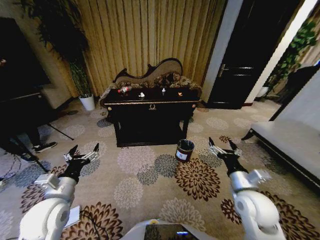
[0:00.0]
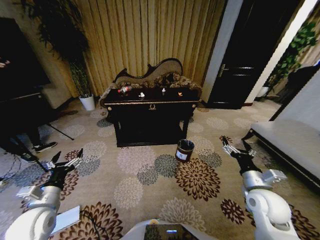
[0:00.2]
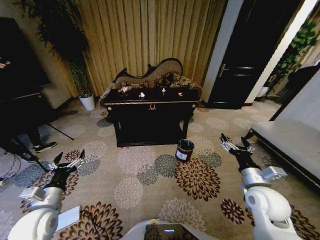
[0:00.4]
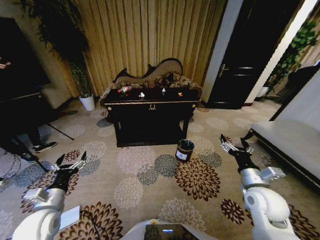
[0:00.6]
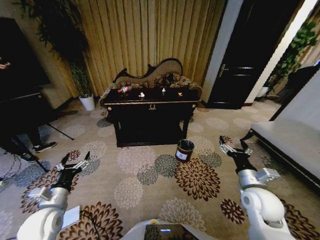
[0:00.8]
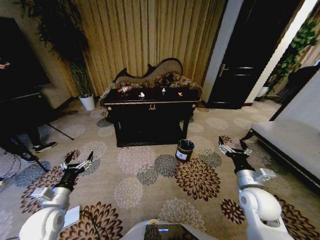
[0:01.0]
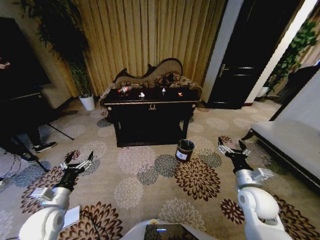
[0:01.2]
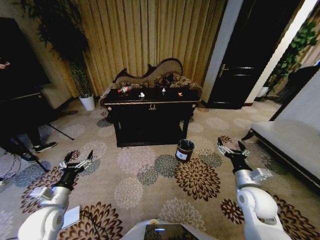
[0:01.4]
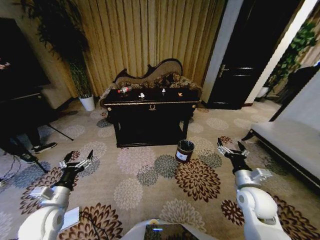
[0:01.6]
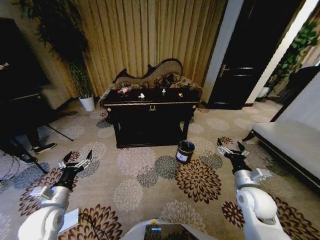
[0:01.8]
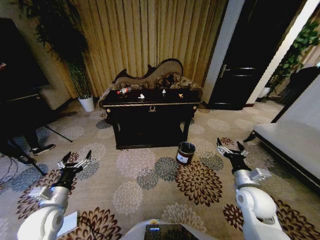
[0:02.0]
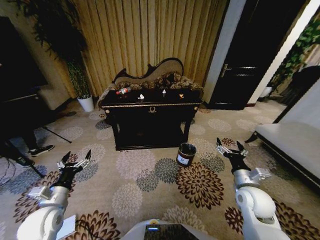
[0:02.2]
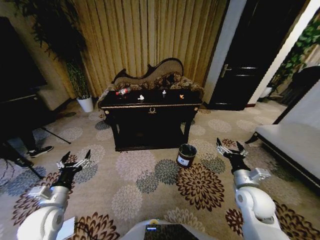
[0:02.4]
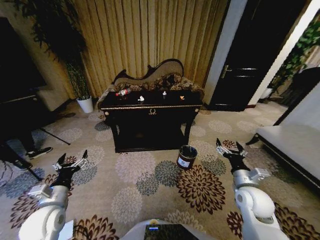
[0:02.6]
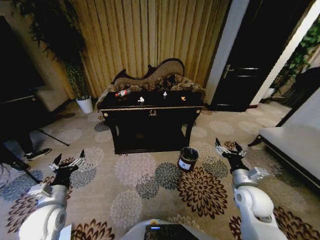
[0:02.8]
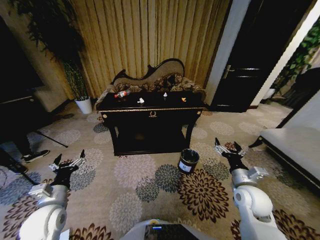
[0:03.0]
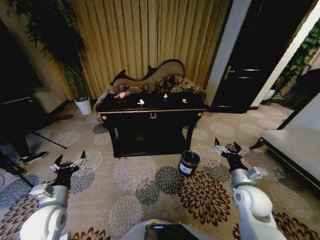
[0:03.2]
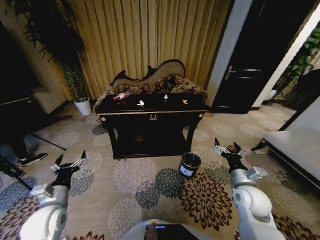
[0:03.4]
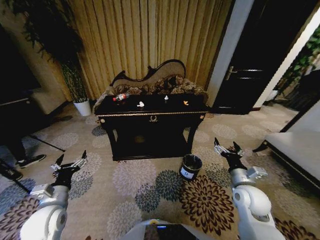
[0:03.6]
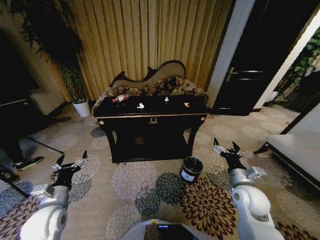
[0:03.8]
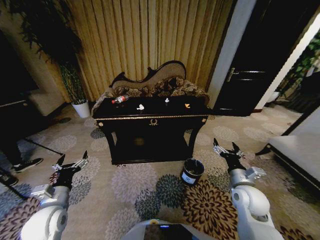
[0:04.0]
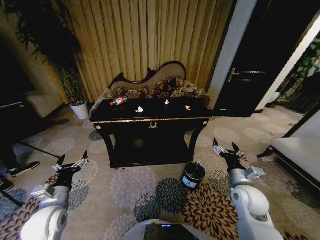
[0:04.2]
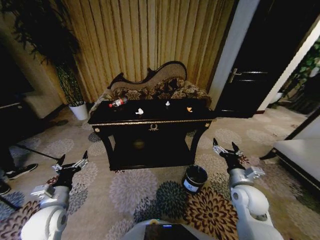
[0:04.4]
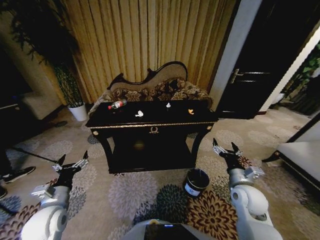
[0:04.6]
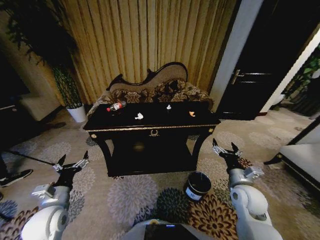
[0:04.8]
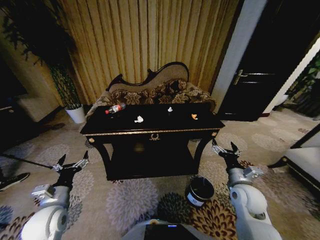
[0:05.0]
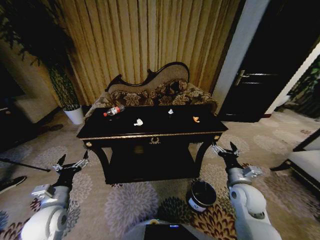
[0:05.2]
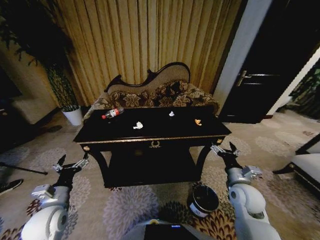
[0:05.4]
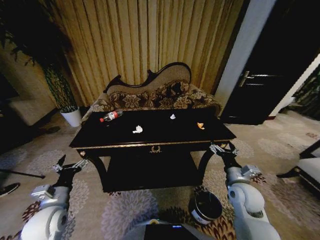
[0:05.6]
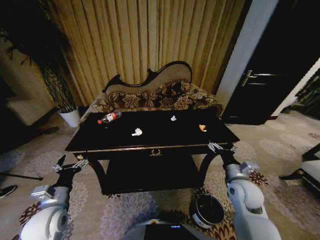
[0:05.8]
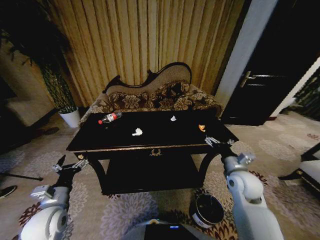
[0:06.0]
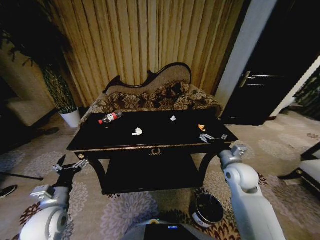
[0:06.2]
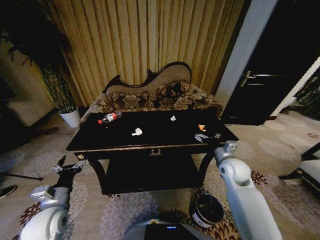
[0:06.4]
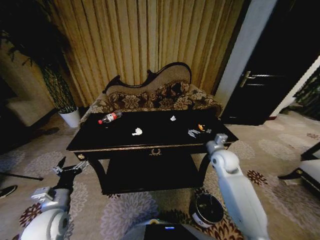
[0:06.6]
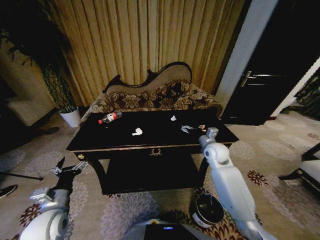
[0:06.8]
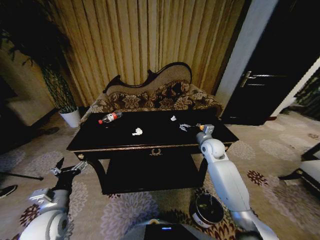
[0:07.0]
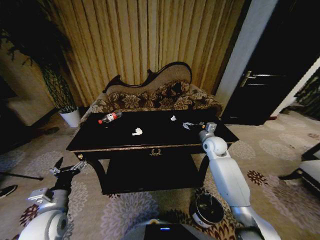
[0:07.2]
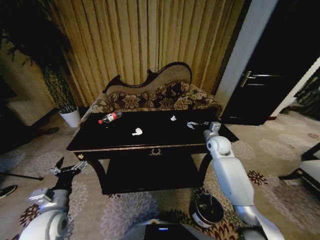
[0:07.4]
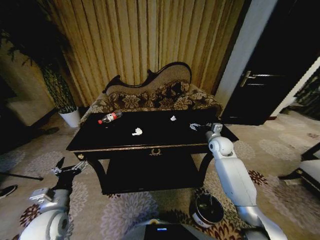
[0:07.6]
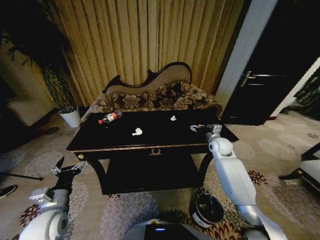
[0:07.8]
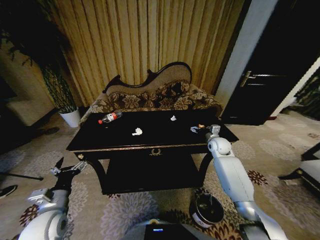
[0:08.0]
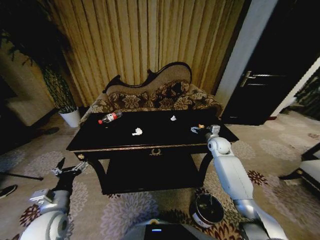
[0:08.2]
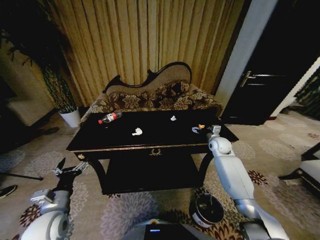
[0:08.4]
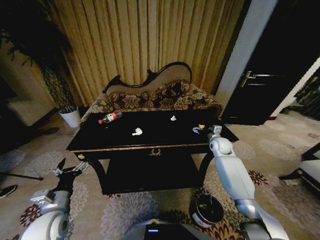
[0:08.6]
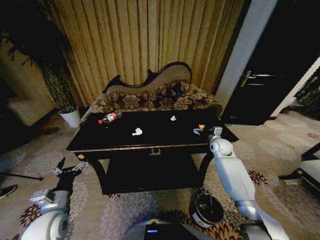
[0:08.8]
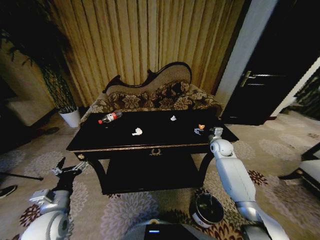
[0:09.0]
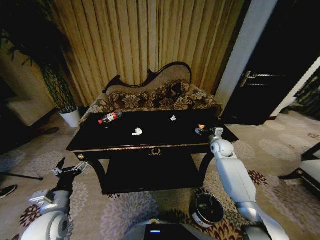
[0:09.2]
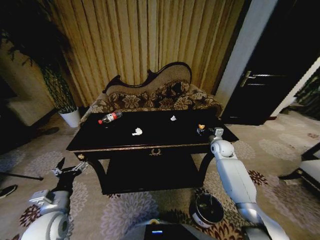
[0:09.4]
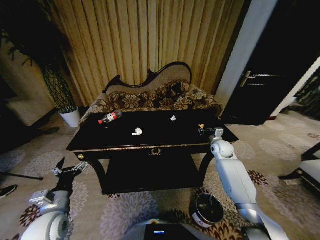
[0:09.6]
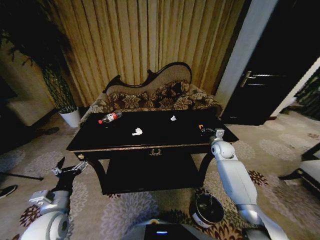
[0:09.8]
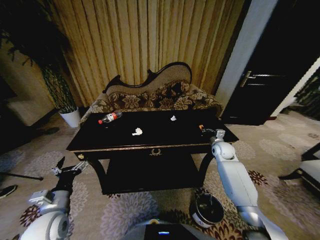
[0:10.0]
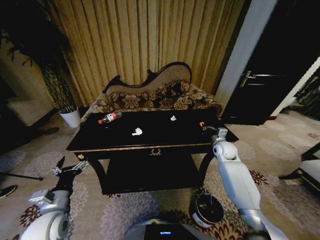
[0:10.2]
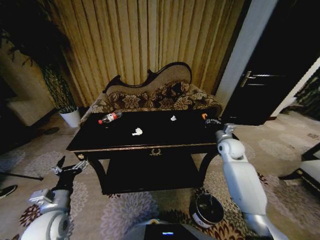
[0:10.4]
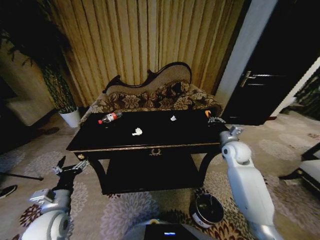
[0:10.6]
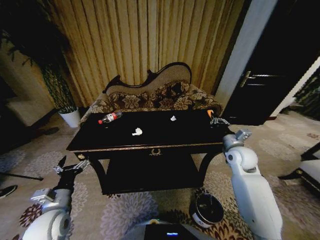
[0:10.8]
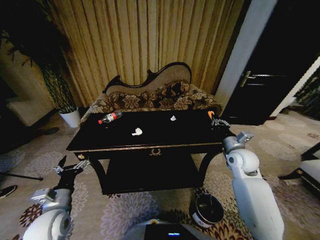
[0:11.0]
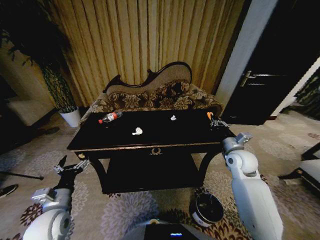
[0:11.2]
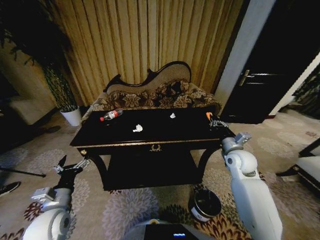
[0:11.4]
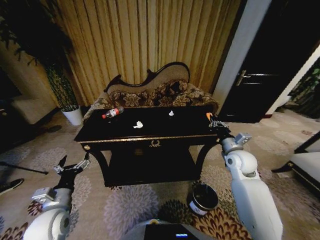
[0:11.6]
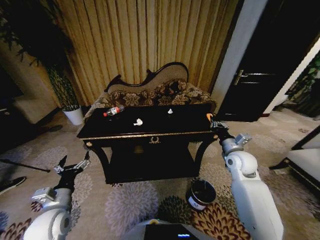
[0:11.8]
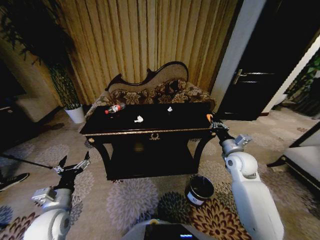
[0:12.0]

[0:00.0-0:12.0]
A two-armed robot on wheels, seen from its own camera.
Task of the whole recording: Move to the front of the table and place the trash on the table into the trash bin.
0:04.4 to 0:06.0: The right gripper ends up roughly 5 cm from where it was.
0:06.0 to 0:07.6: The right gripper travels forward by some 20 cm.
0:07.6 to 0:09.0: The right gripper changes place by some 5 cm.
0:09.0 to 0:10.4: The right gripper goes approximately 5 cm upward, and closes its fingers.
0:10.4 to 0:12.0: The right gripper shifts roughly 10 cm backward.

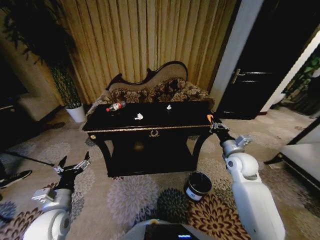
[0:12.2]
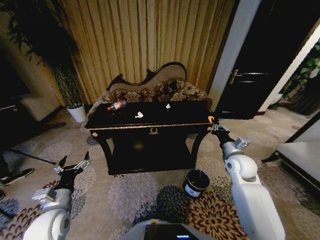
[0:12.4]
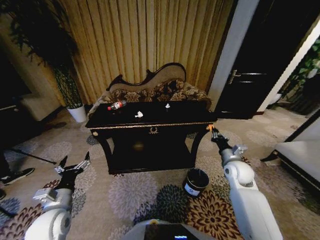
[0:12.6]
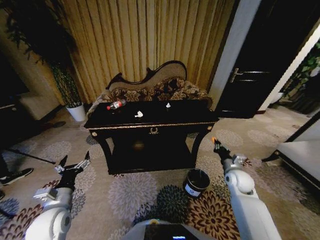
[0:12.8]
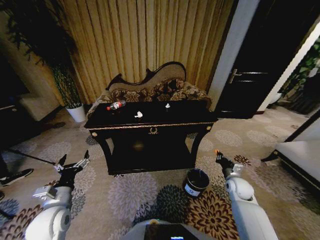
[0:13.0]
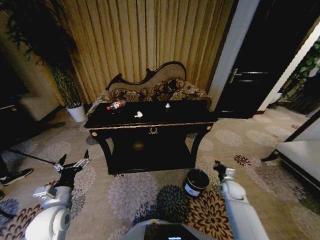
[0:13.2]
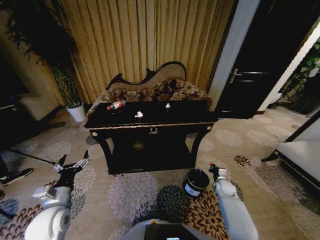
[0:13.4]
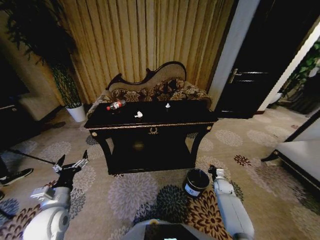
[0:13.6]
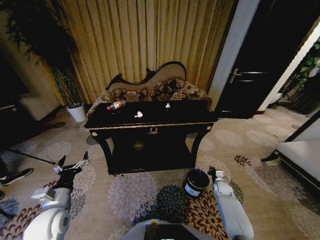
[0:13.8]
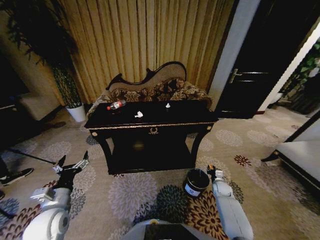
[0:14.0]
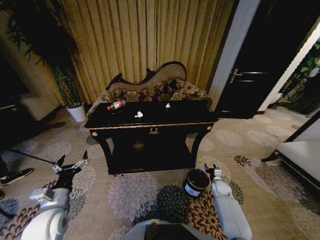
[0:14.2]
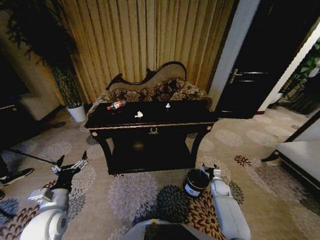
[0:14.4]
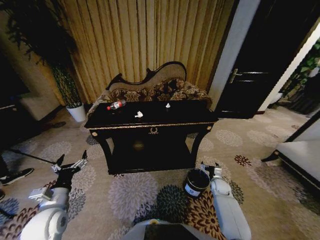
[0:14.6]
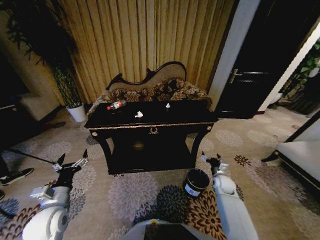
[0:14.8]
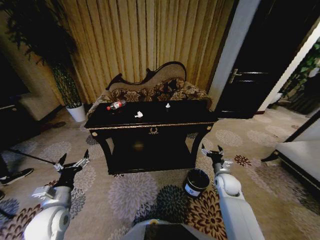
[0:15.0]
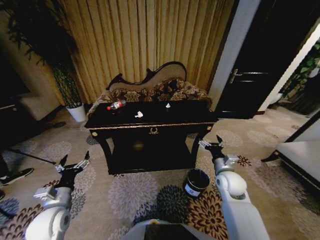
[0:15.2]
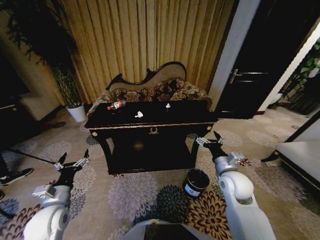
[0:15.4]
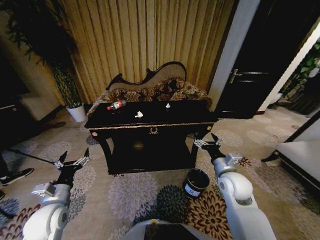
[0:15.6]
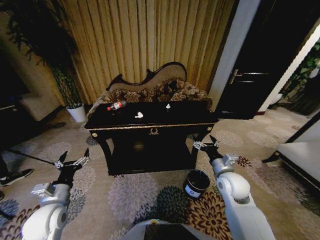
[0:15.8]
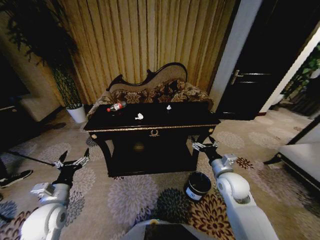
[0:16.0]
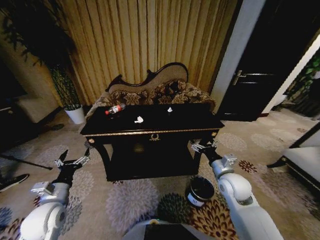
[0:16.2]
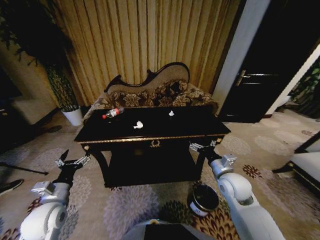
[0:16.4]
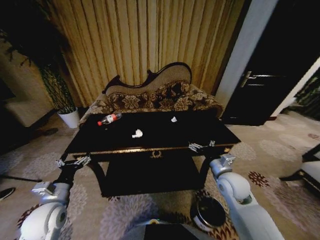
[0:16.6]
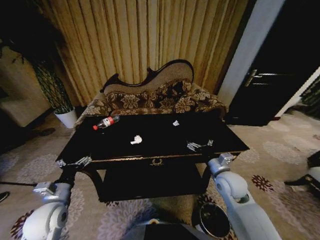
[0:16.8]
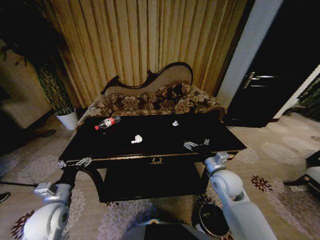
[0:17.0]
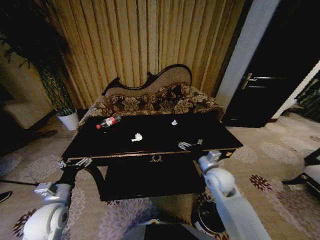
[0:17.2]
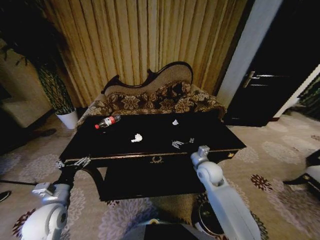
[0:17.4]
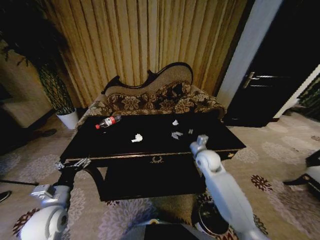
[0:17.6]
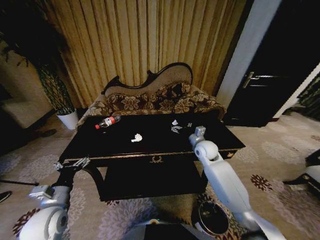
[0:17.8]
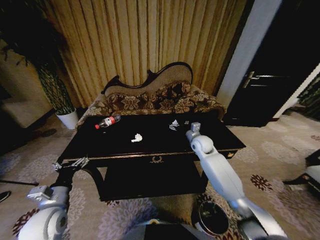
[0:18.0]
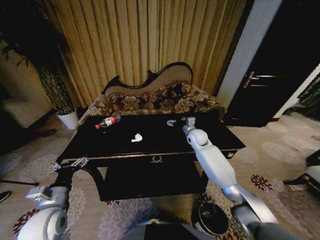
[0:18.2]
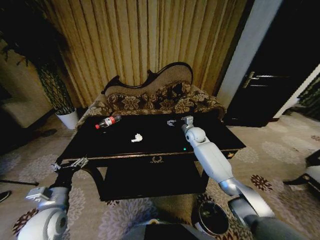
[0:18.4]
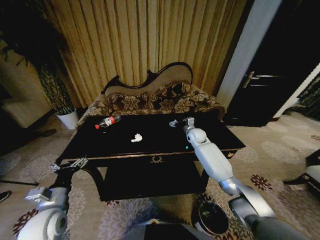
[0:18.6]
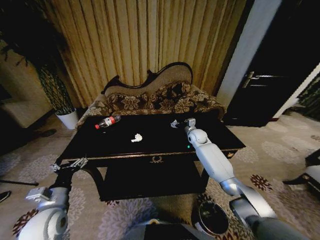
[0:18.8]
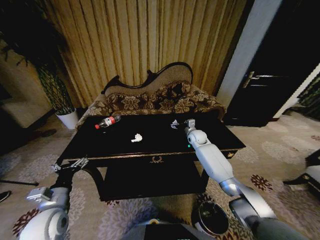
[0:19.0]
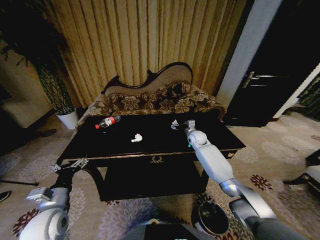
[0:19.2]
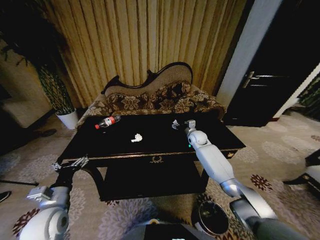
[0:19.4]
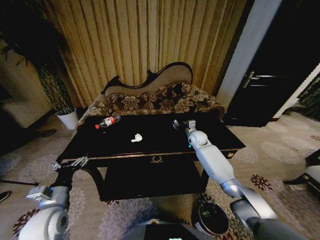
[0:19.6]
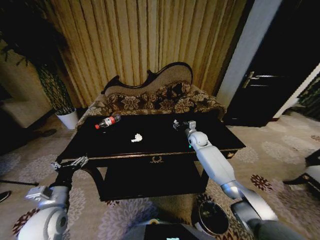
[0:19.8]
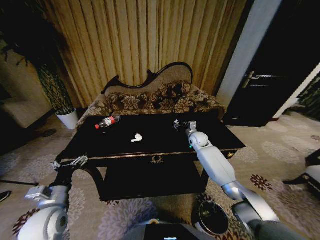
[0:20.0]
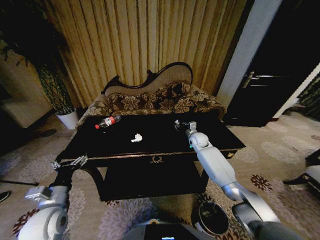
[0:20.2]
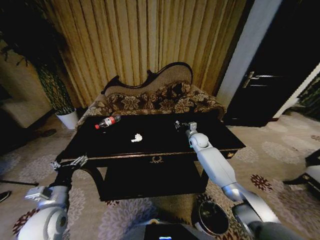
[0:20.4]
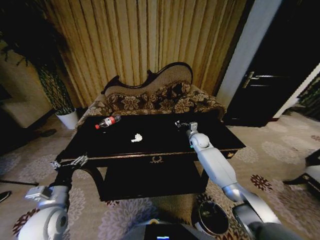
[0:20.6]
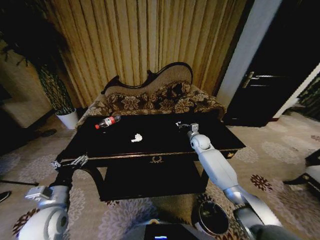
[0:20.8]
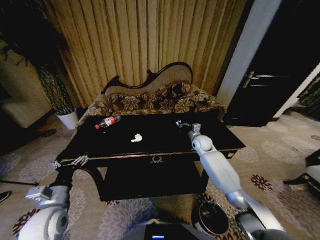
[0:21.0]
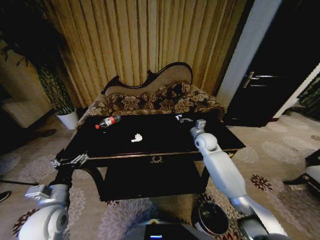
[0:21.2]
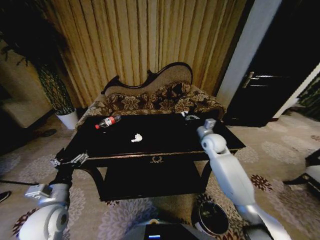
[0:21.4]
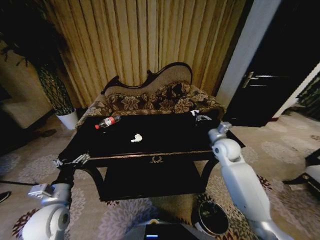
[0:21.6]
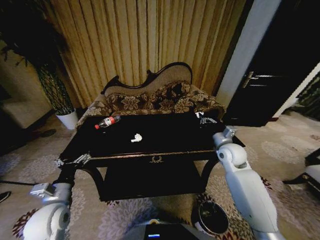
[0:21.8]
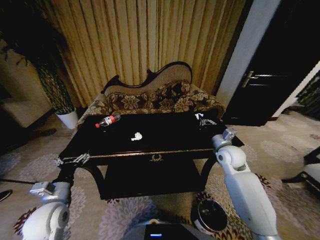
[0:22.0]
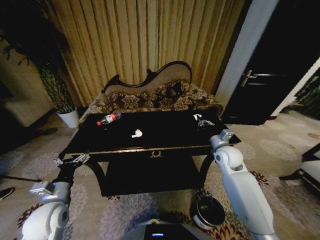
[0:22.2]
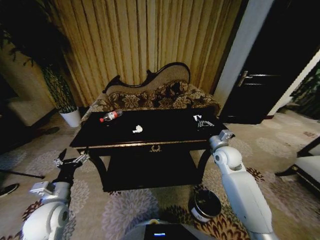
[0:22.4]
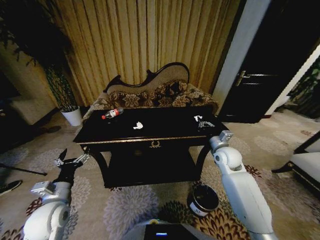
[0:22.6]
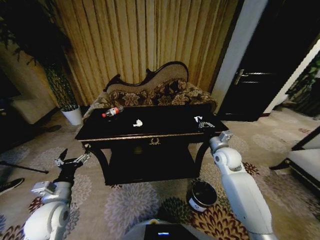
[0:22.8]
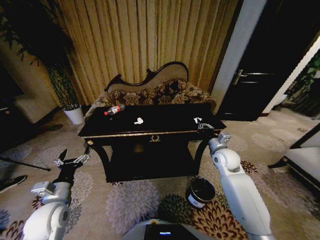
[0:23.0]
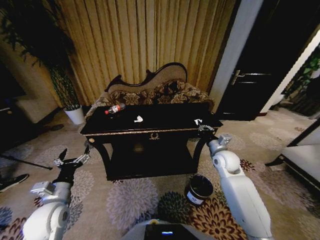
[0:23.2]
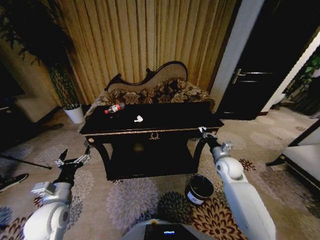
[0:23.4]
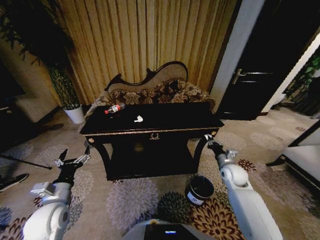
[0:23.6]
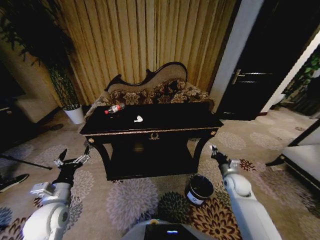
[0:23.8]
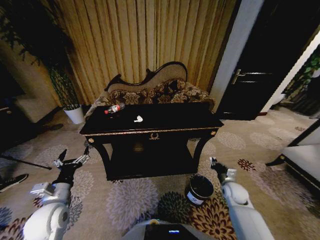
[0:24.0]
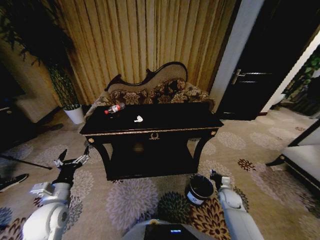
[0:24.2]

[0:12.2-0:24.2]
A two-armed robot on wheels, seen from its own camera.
Task of the whole recording: Move to the front of the table and place the trash on the table into the trash bin.
0:12.2 to 0:13.8: The right gripper goes some 30 cm downward.
0:13.8 to 0:15.2: The right gripper heads upward and to the left, covering roughly 25 cm, and opens.
0:16.6 to 0:18.2: The right gripper is displaced forward by some 25 cm.
0:18.2 to 0:19.8: The right gripper shifts by some 5 cm, and closes up.
0:19.8 to 0:21.2: The right gripper goes roughly 5 cm backward, and closes its fingers.
0:21.2 to 0:22.6: The right gripper shifts roughly 10 cm backward and to the right.
0:22.6 to 0:24.2: The right gripper is displaced downward and backward by roughly 25 cm.
